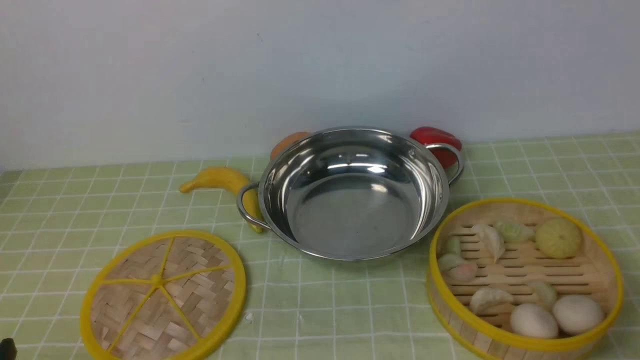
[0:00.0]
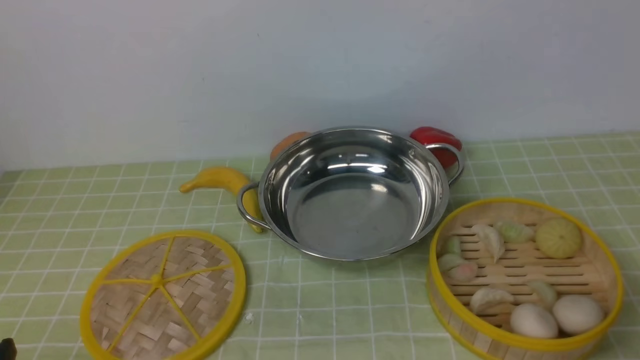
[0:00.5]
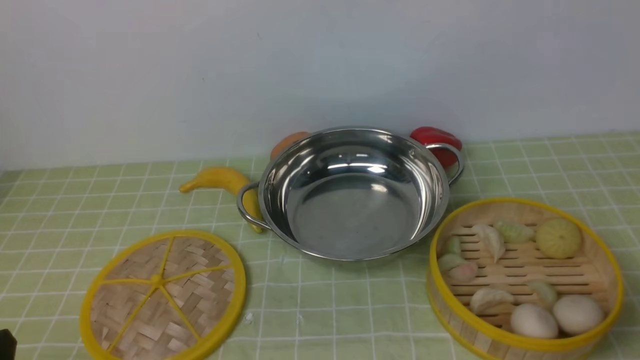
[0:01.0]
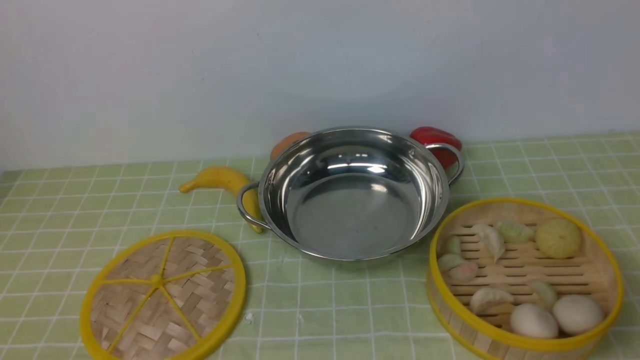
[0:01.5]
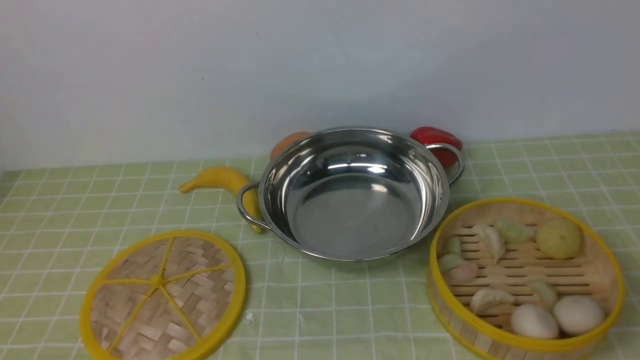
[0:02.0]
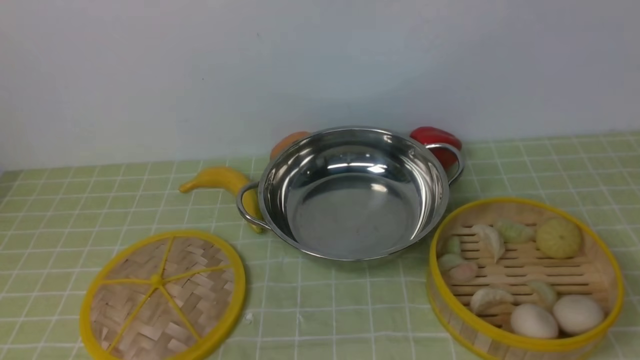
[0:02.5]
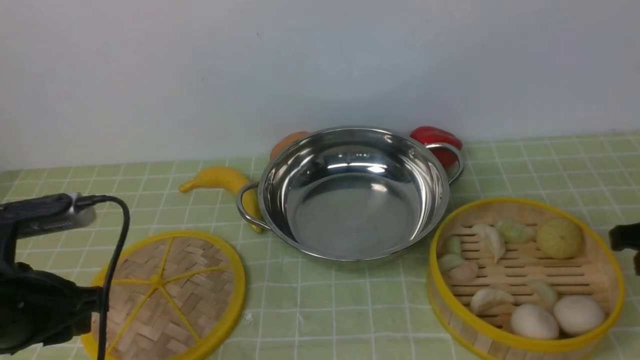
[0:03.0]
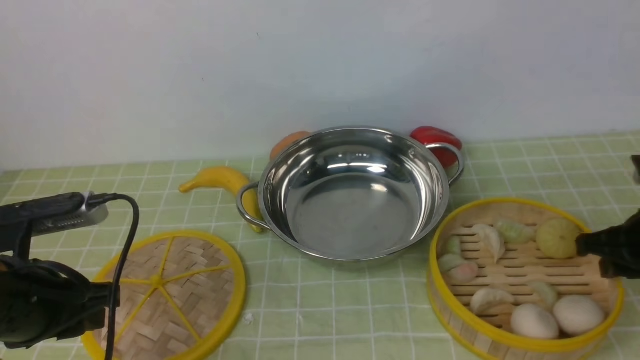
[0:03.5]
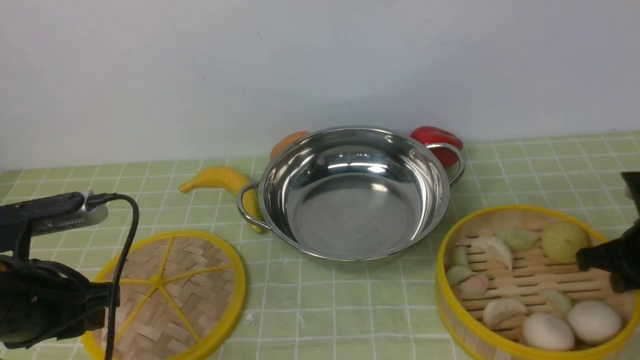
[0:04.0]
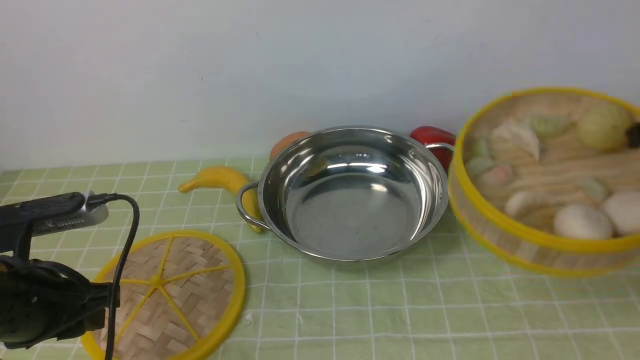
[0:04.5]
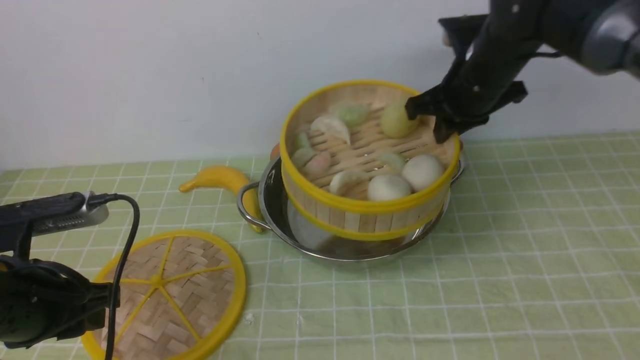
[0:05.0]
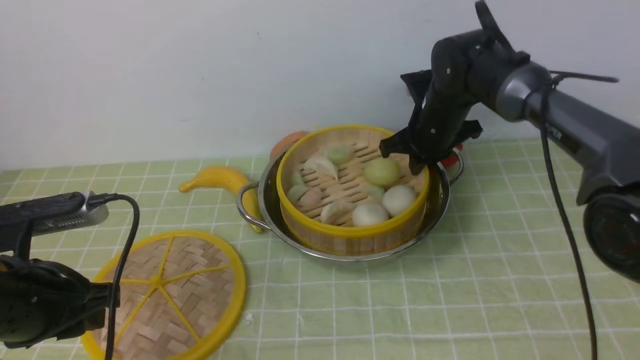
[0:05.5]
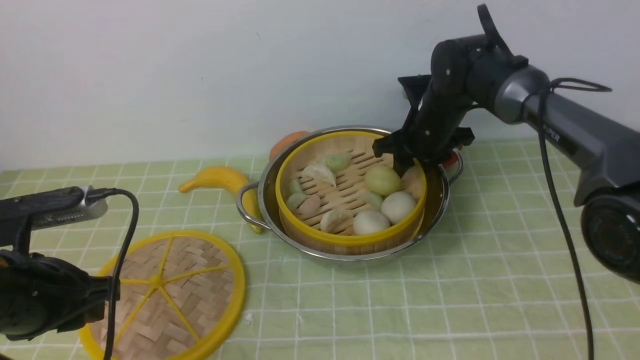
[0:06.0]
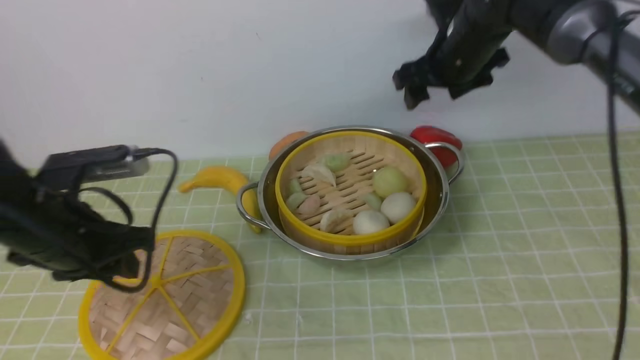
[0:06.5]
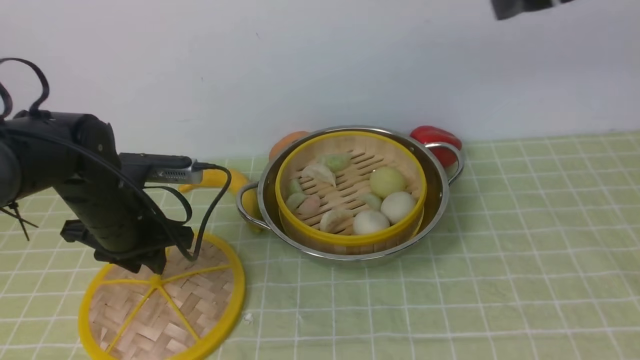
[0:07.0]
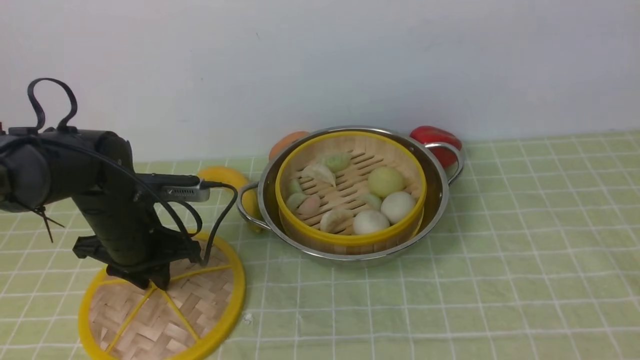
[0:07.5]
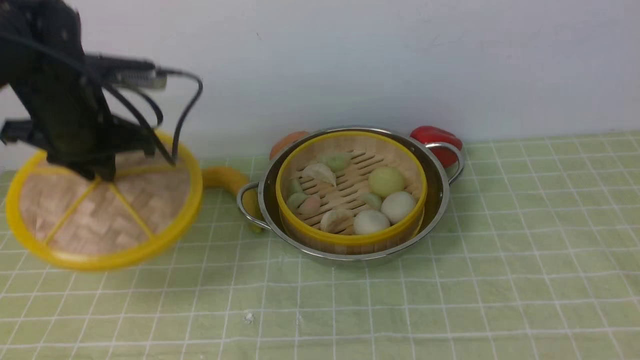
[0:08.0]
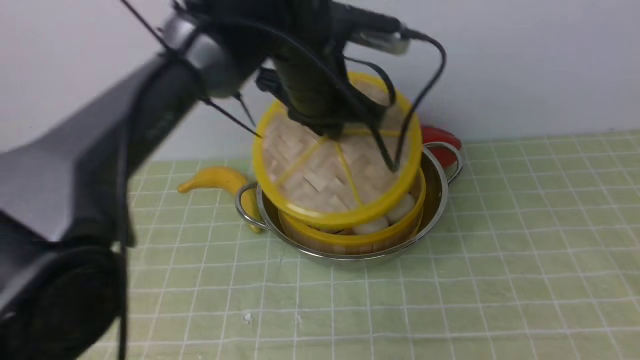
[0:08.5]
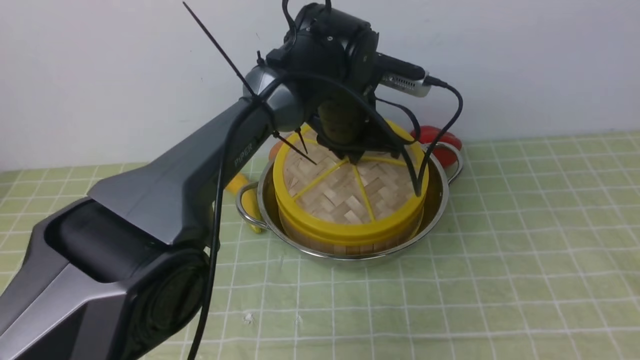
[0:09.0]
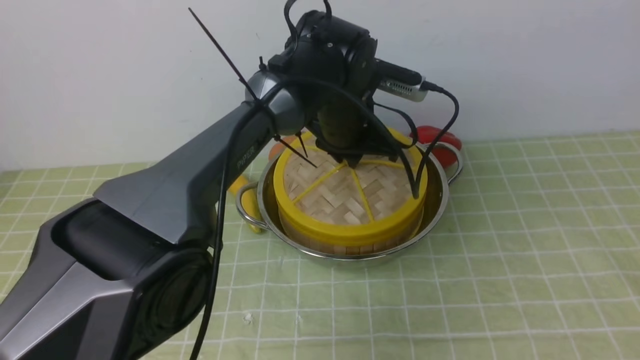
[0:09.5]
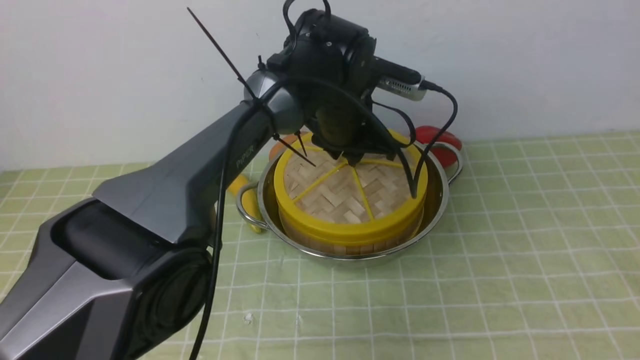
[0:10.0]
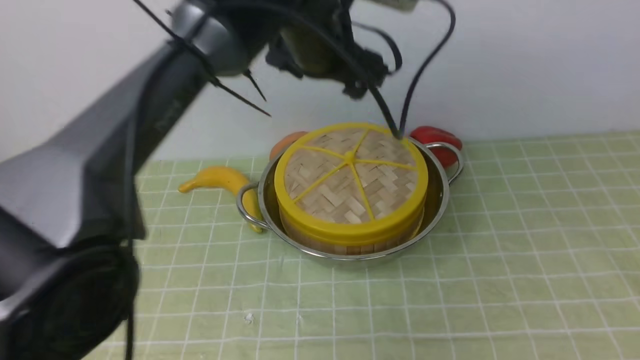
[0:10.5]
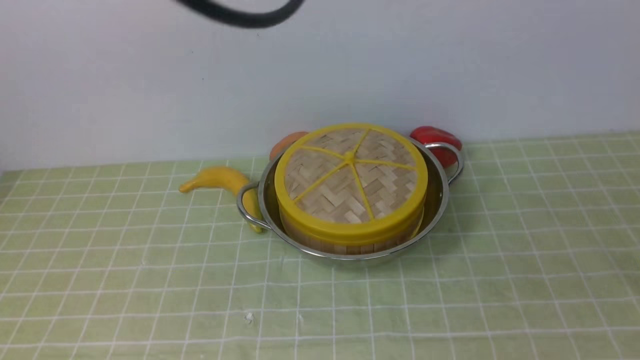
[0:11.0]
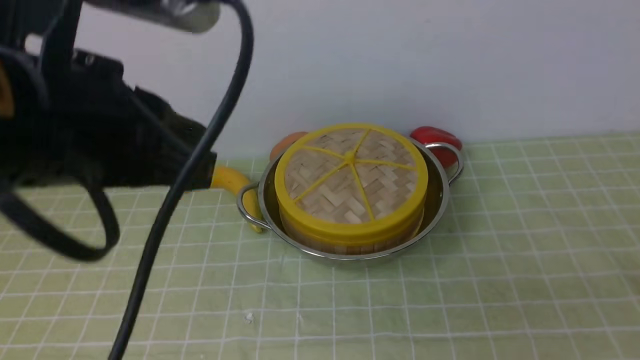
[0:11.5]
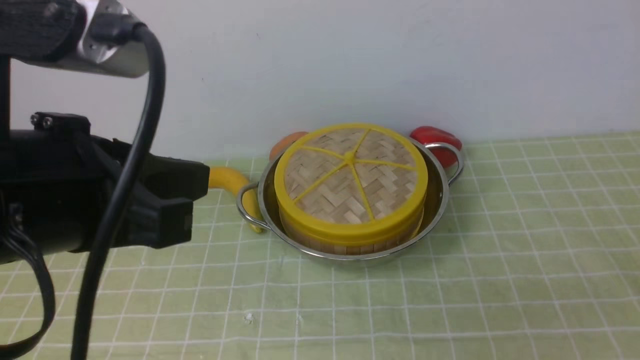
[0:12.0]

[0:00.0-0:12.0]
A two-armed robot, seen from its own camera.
Task of the whole recording: place the steamer in the pot on the green tablecloth, and put the lid on the steamer.
Step, 0:00.0 to 0:04.0: use the right arm to lift the steamer closest to it.
Step, 0:04.5 to 0:06.5: use the right arm to put the steamer into the iron steamer pot in the middle.
Step, 0:07.0 to 0:08.0: use the left arm to lift the lid of the steamer.
Step, 0:08.5 to 0:10.5: use the left arm to place the steamer lid on the steamer.
0:02.0 to 0:04.0: The grippers both shift forward and downward by approximately 25 cm.
0:04.0 to 0:06.0: The right gripper moves to the left and forward, about 30 cm, and opens.
0:06.0 to 0:08.0: The right gripper heads backward, upward and to the right, covering about 50 cm, and opens. The left gripper shifts about 15 cm forward.
0:08.0 to 0:10.0: The left gripper heads to the right, covering some 20 cm.
0:10.0 to 0:12.0: The right gripper shifts approximately 20 cm downward and backward, and closes up, while the left gripper shifts about 35 cm backward, to the left and upward, and closes its fingers.

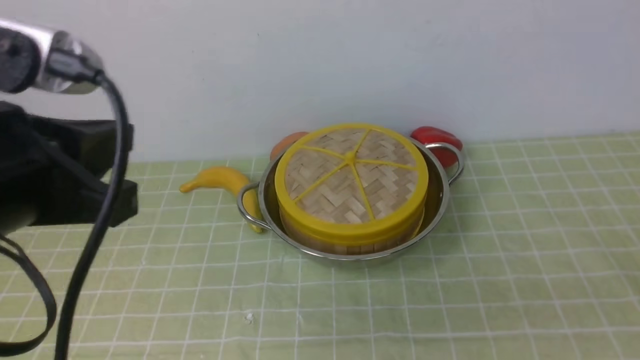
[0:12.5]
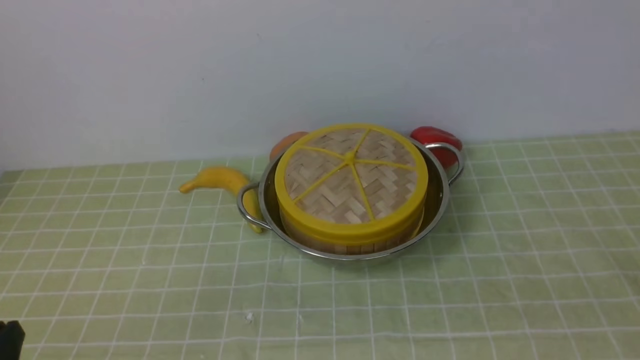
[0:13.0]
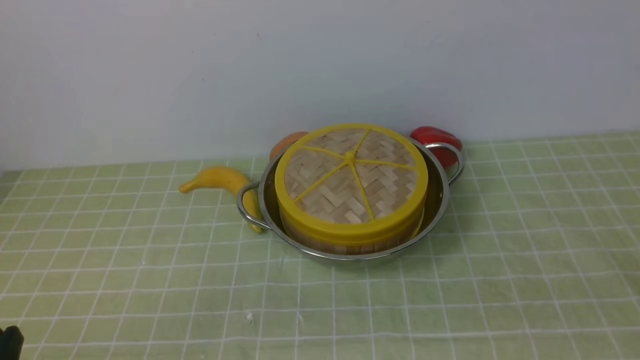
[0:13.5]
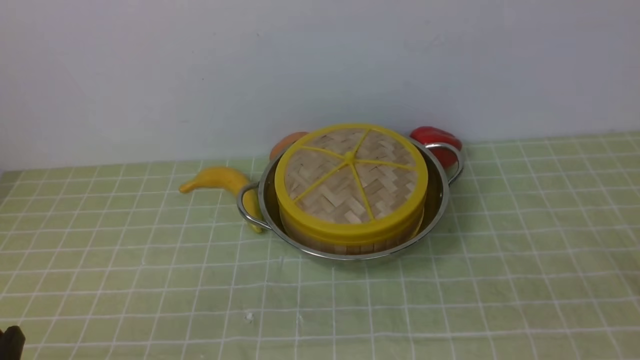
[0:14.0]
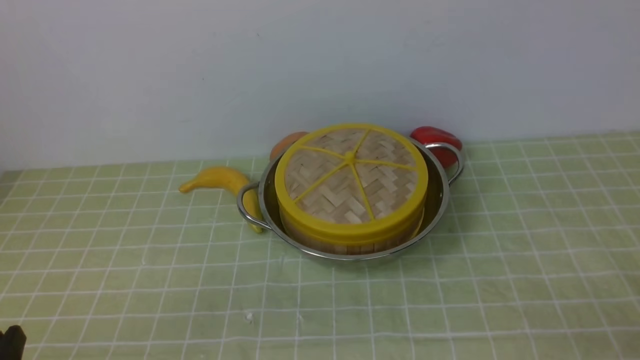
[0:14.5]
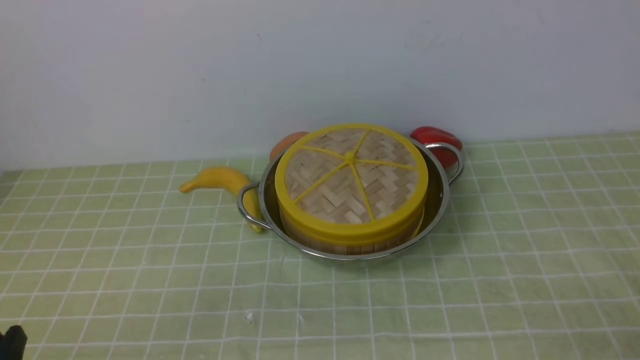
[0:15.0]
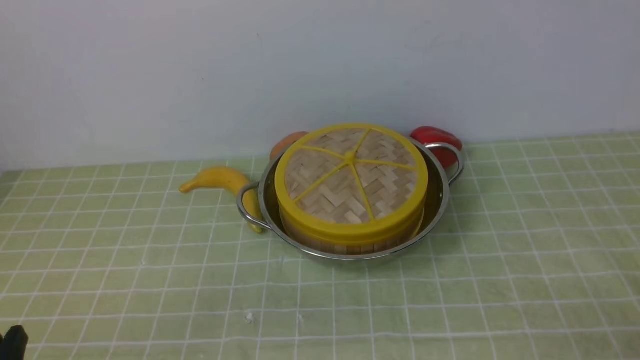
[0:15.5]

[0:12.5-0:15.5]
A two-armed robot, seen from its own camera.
Task of the whole recording: place the steamer in the pot on the green tablecloth, and put the lid on the steamer.
0:12.5 to 0:14.0: The left gripper shifts approximately 20 cm downward and backward.
